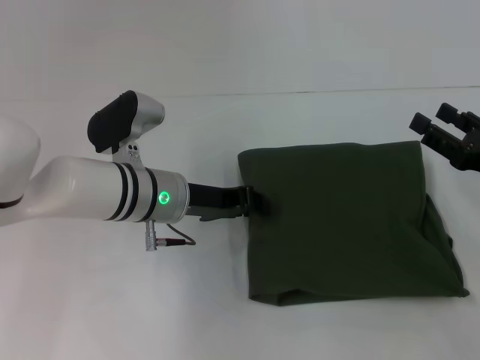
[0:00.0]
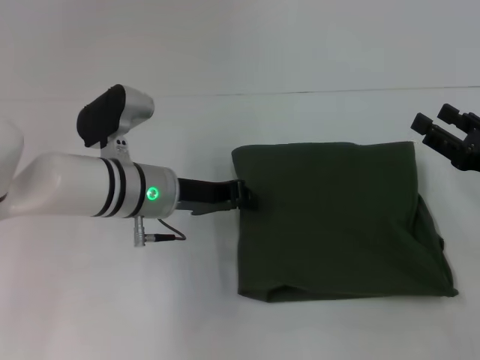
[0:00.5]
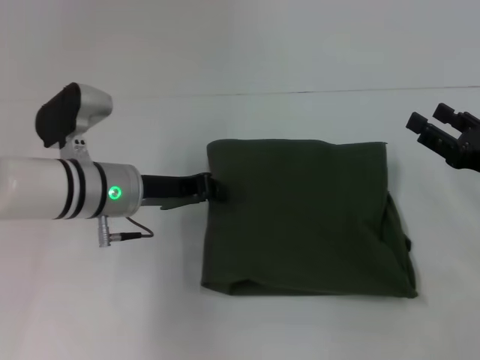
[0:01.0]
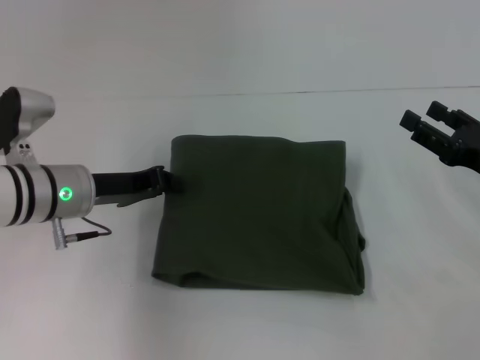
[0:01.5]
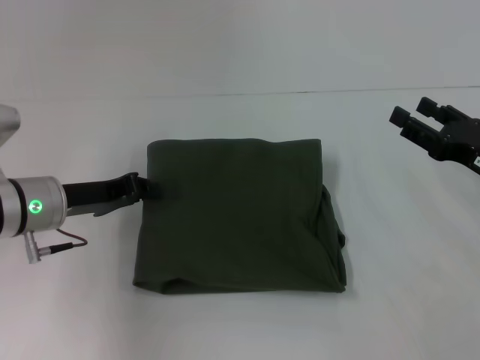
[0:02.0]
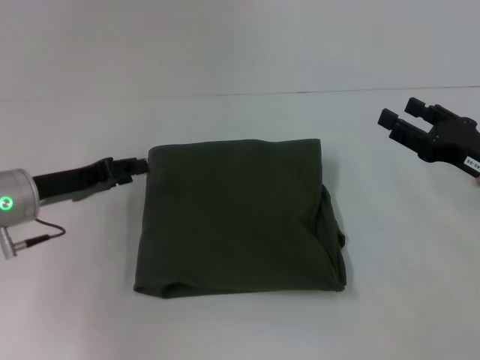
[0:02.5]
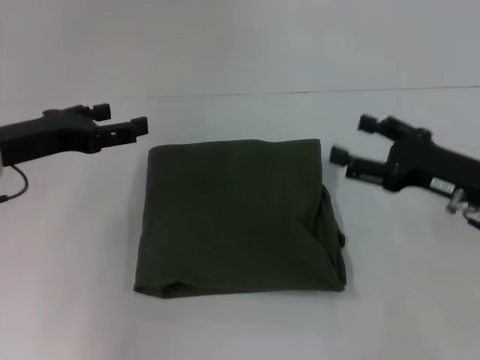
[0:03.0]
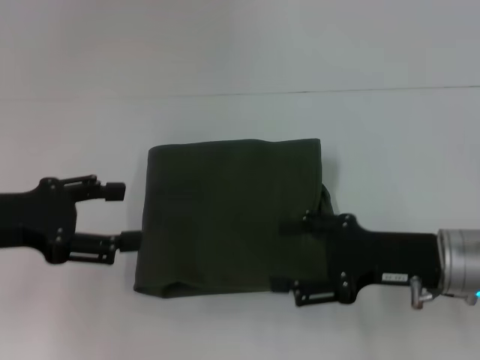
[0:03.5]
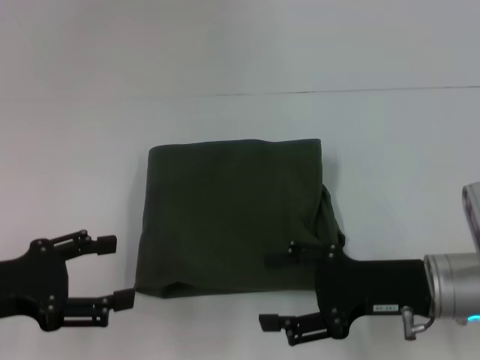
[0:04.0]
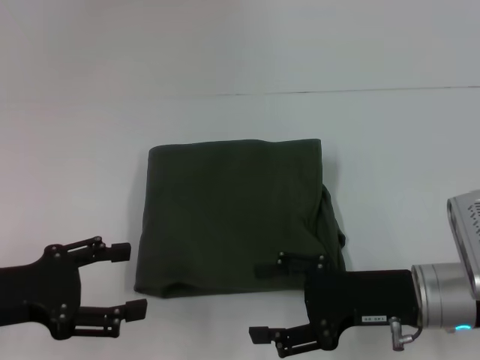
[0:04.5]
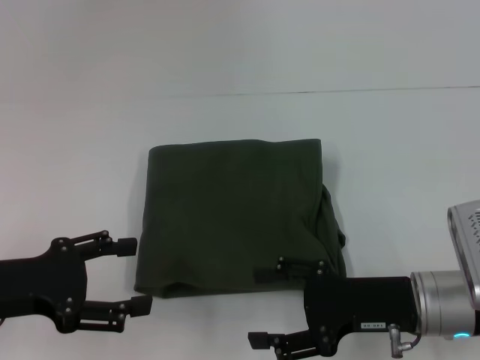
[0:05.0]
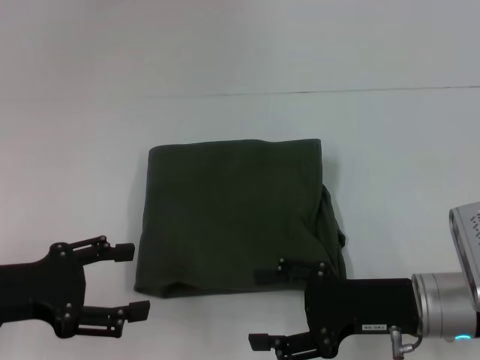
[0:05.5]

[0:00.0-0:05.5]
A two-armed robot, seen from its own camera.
0:00.0 to 0:02.0: The left gripper travels to the left by approximately 10 cm, and closes up.
0:02.0 to 0:03.5: The left gripper shifts approximately 10 cm upward, backward and to the left, and opens up, while the right gripper travels to the left by approximately 10 cm.
0:03.5 to 0:05.5: The left gripper shifts by approximately 5 cm.
